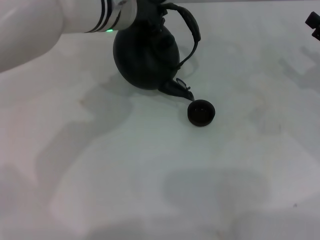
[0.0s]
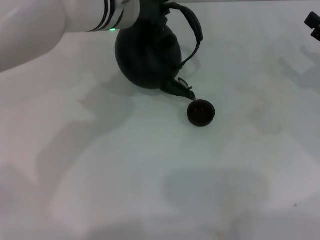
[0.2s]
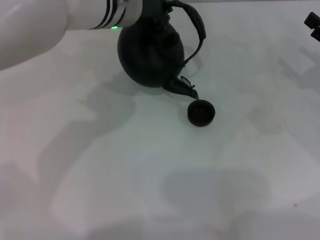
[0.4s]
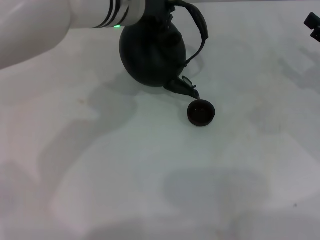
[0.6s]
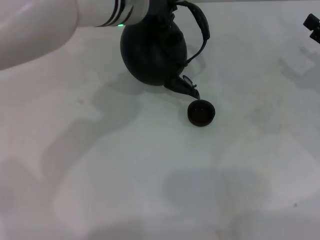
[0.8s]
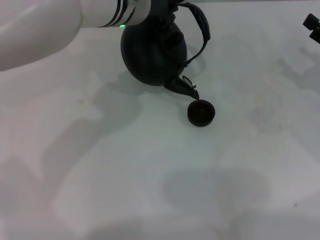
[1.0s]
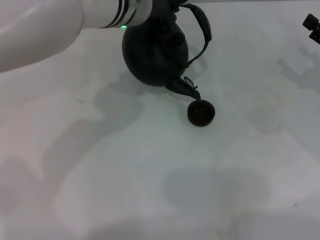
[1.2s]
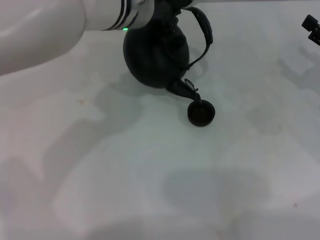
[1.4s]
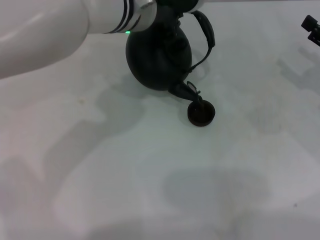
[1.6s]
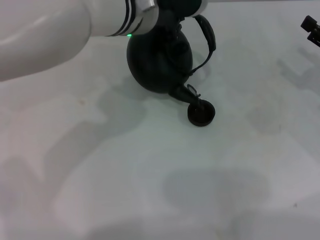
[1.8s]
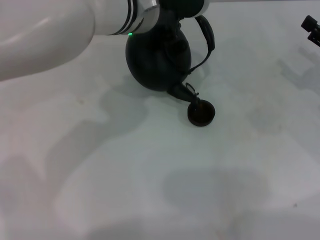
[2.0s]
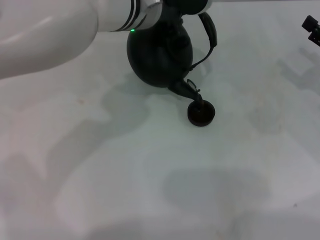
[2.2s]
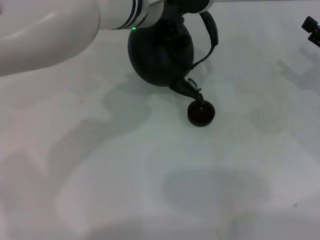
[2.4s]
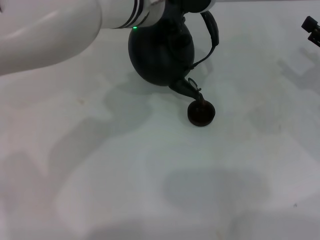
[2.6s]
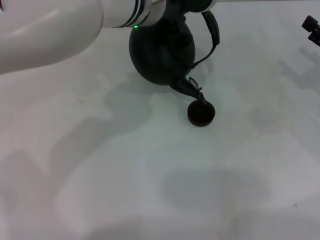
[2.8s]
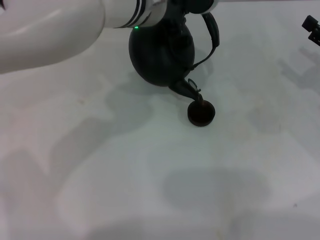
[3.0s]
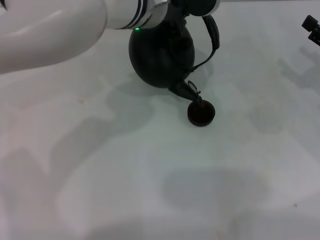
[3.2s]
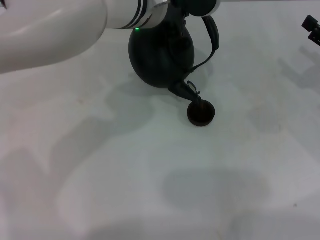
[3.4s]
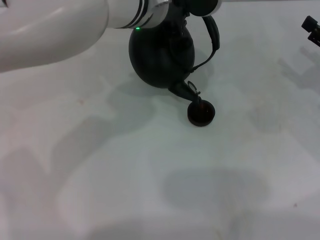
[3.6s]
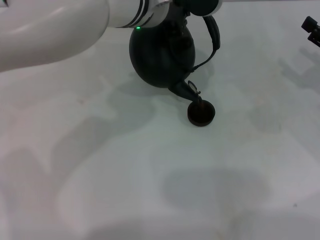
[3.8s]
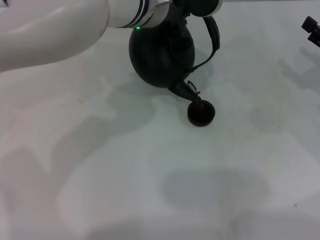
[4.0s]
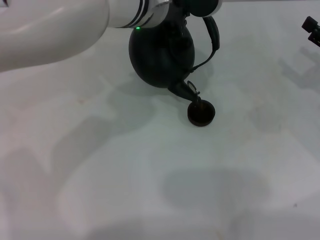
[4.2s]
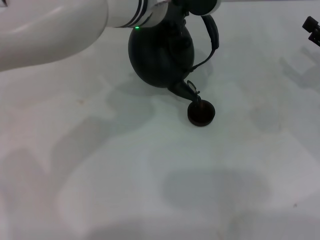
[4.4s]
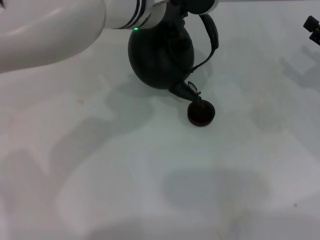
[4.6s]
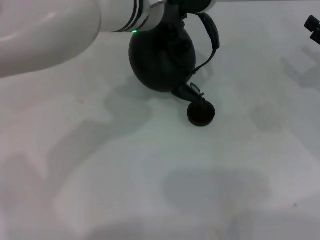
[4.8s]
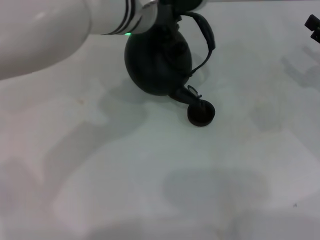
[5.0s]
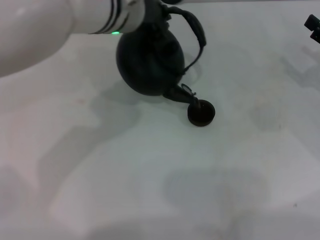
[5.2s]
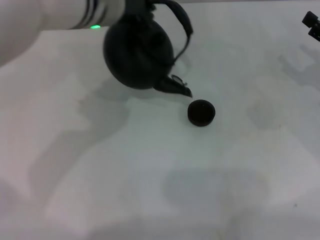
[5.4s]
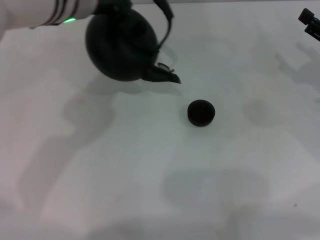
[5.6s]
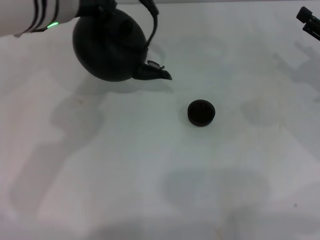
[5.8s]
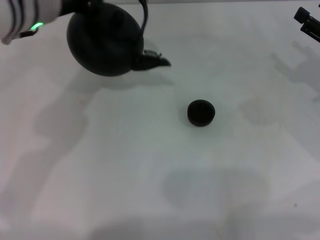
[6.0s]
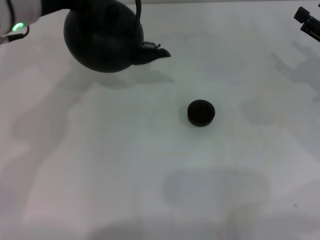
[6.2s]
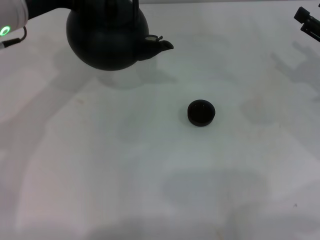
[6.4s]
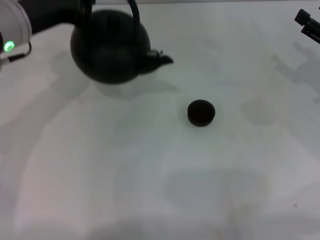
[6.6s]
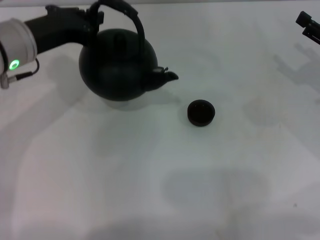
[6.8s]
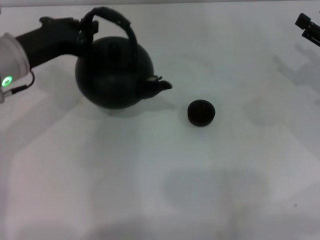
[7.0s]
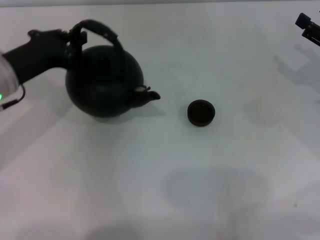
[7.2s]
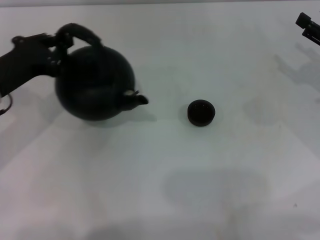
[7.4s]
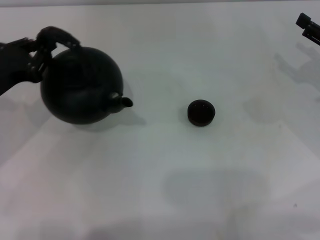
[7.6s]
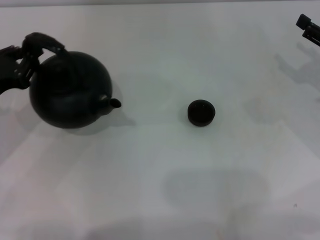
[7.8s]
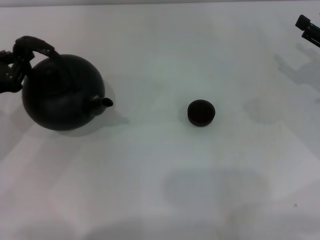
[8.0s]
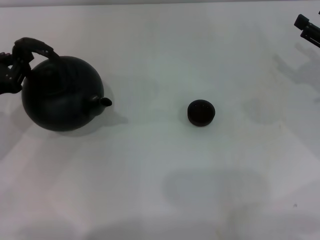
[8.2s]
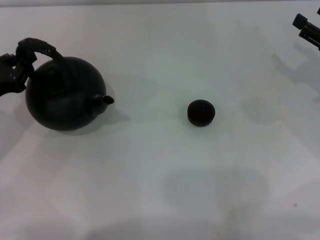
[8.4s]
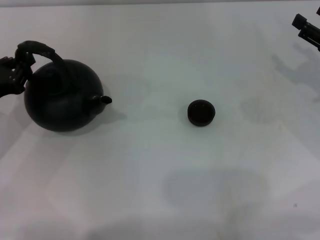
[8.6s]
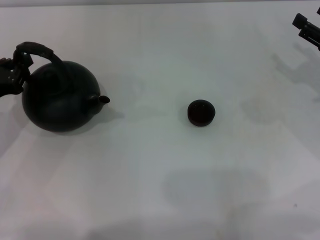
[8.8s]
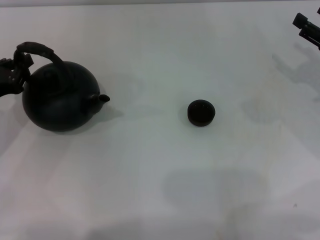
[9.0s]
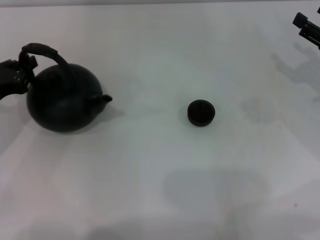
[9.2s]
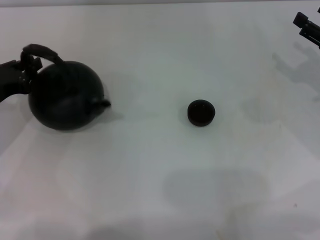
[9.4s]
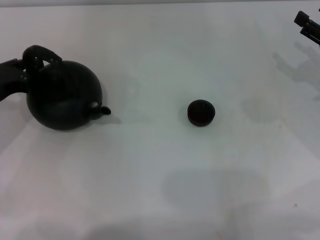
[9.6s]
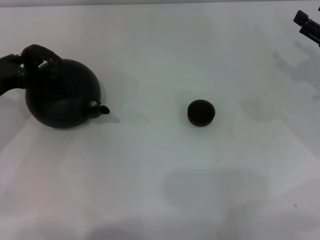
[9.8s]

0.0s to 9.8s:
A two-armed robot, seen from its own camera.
Task of the whole recording: Grasp the handle of the teapot with one hand and pour tea into the teacup.
Step, 0.0s to 5.4s: Pour tea into the teacup with the left gripper.
0.0s to 2.8s: The grippers move only a little.
2.8s to 4.2s: Both grippers stay put.
4.2s to 5.6s: The left gripper heads to the left, covering some 10 cm.
5.6s to 7.0s: The left gripper moves to the left and downward, roughly 15 cm.
7.0s to 8.4s: The left gripper travels to the left, backward and downward by about 10 cm.
8.4s to 9.8s: There are only small adjustments of the grippers.

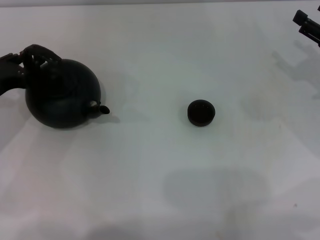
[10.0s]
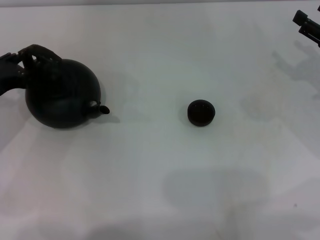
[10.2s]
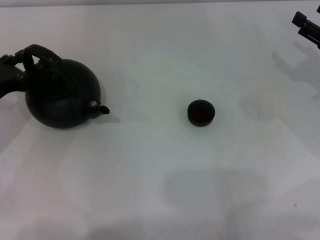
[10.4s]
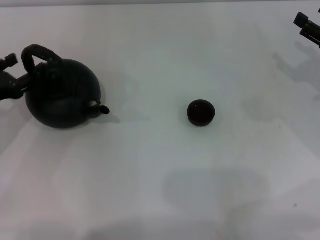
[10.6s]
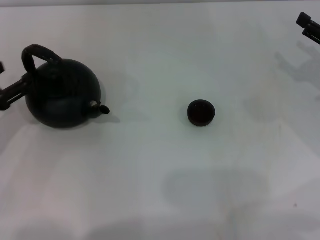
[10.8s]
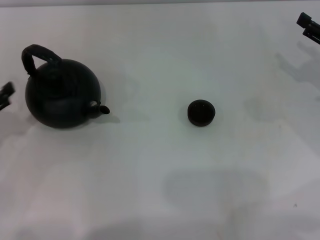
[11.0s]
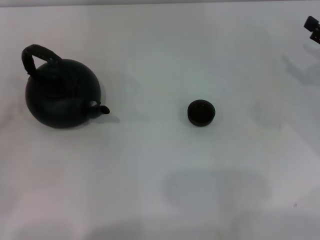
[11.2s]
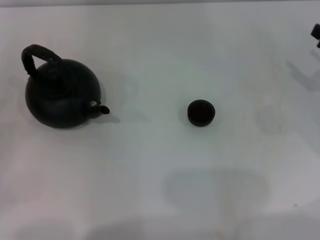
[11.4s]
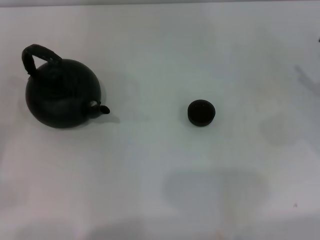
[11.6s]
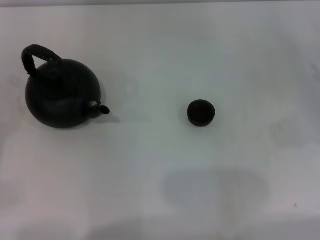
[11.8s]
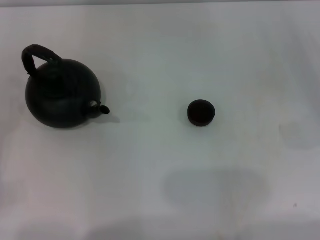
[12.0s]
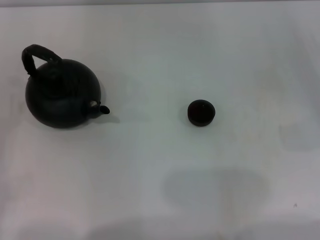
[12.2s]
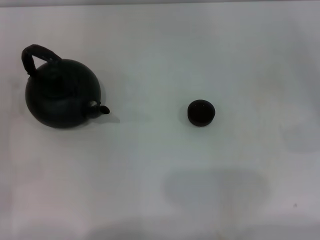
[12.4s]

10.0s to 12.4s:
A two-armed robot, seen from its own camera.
Task of the whole recording: Grasp the handle of the teapot with one hand and pour tea into the teacup.
10.0s to 11.2s: The left gripper travels backward and to the left by some 15 cm, and opens.

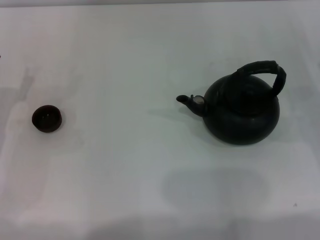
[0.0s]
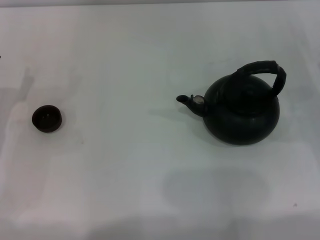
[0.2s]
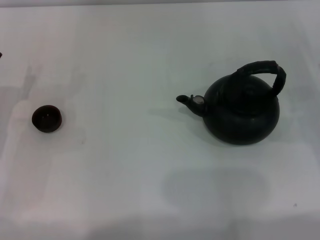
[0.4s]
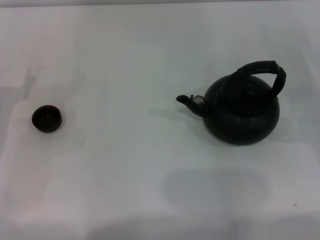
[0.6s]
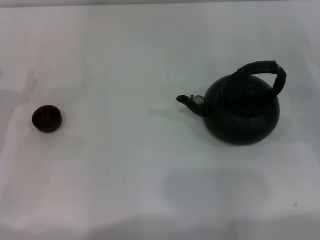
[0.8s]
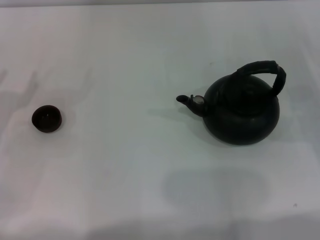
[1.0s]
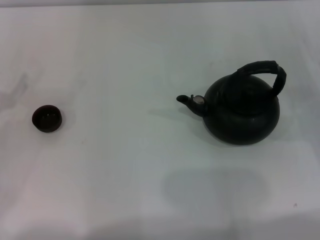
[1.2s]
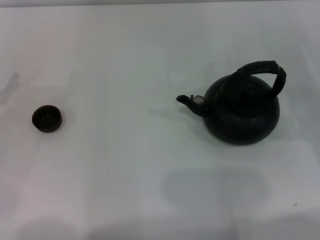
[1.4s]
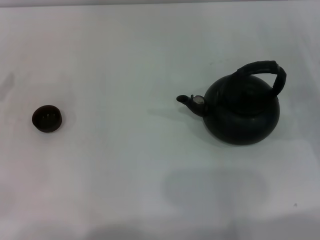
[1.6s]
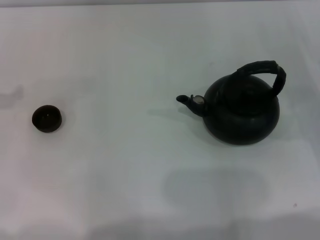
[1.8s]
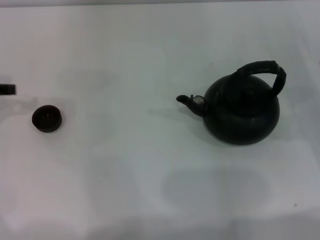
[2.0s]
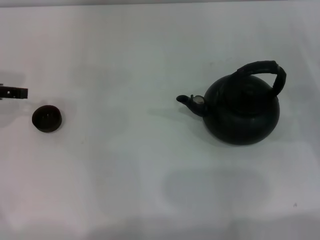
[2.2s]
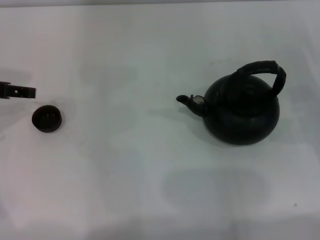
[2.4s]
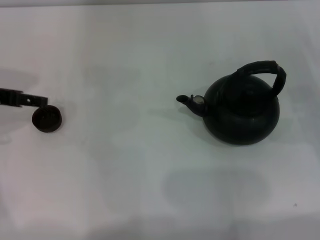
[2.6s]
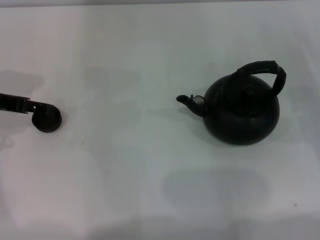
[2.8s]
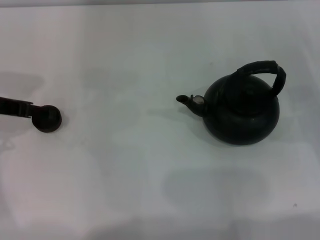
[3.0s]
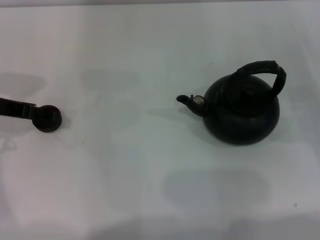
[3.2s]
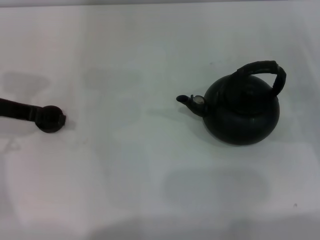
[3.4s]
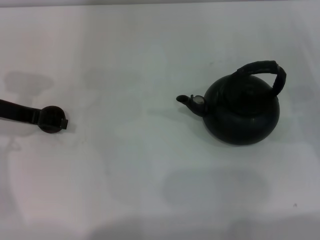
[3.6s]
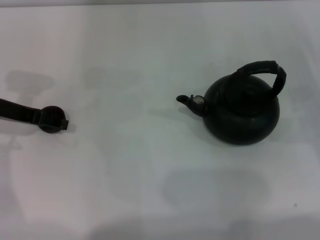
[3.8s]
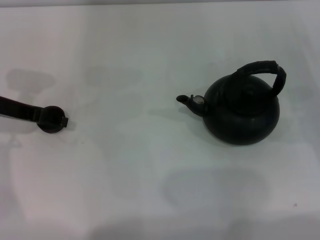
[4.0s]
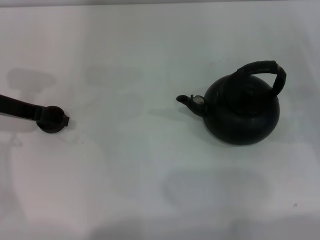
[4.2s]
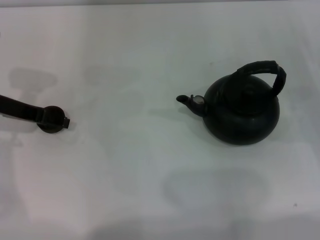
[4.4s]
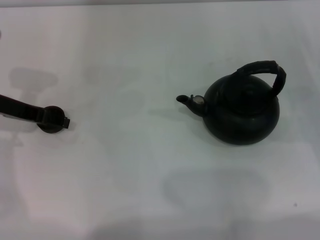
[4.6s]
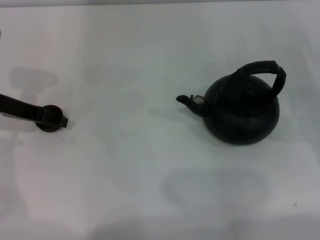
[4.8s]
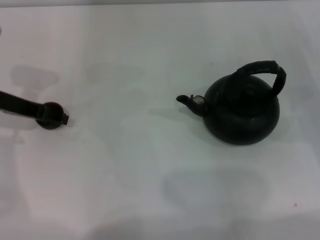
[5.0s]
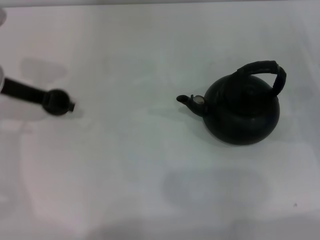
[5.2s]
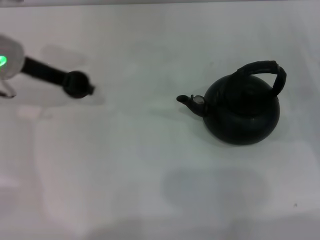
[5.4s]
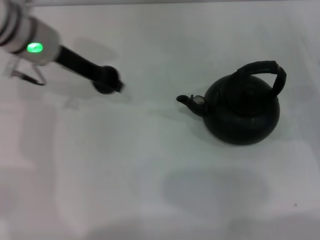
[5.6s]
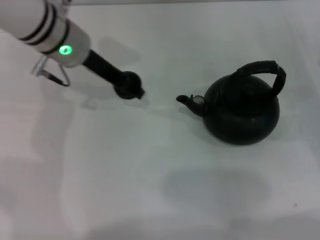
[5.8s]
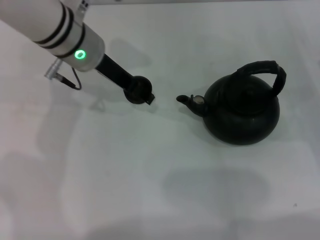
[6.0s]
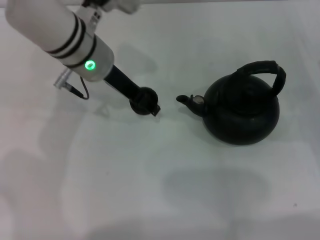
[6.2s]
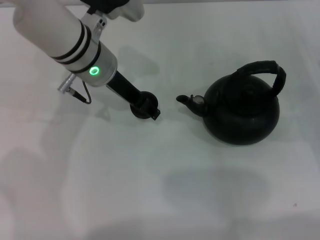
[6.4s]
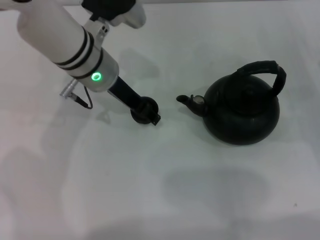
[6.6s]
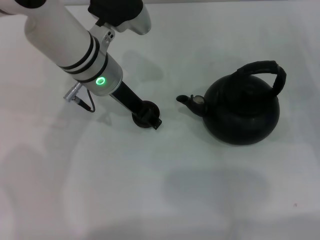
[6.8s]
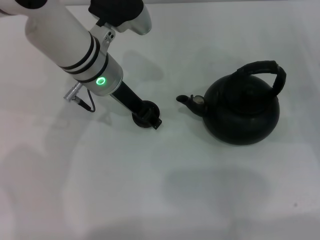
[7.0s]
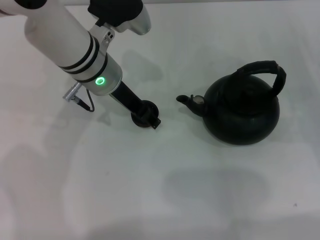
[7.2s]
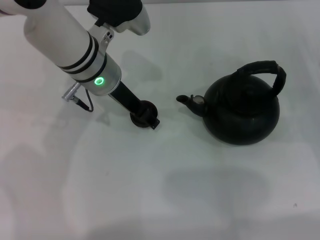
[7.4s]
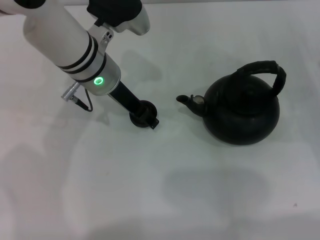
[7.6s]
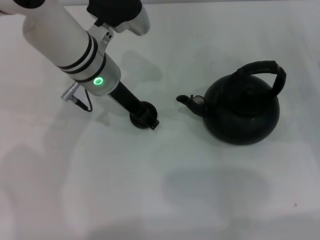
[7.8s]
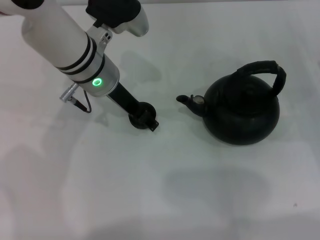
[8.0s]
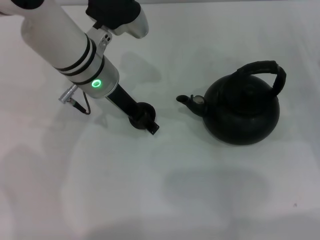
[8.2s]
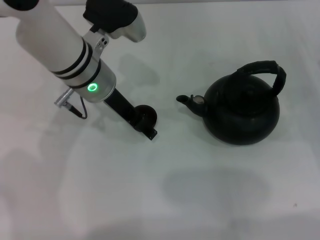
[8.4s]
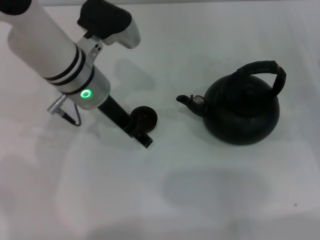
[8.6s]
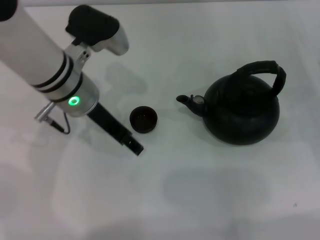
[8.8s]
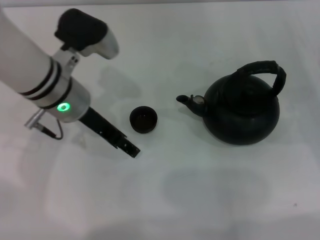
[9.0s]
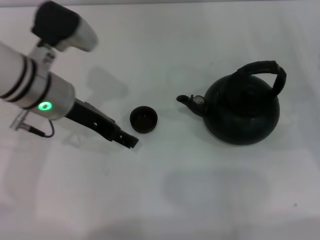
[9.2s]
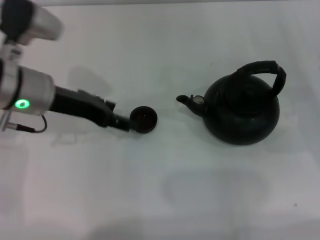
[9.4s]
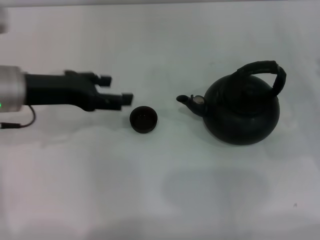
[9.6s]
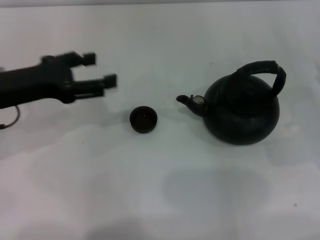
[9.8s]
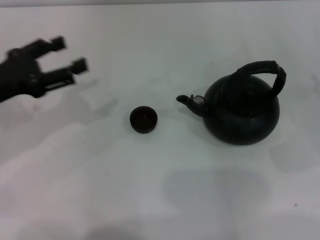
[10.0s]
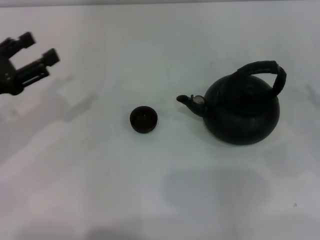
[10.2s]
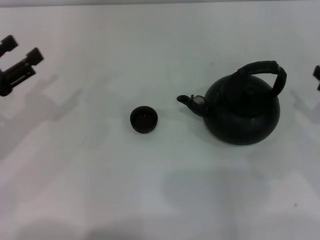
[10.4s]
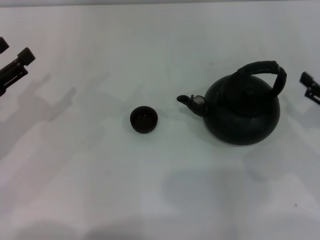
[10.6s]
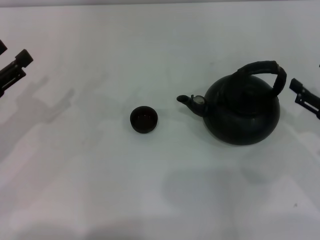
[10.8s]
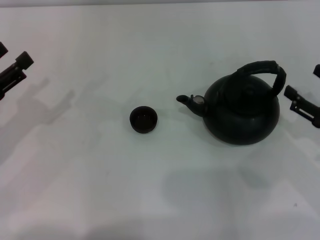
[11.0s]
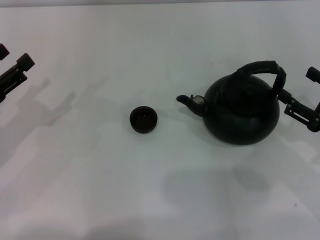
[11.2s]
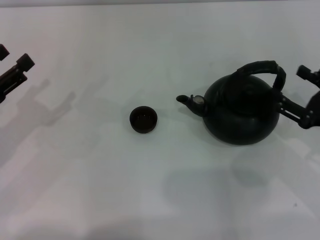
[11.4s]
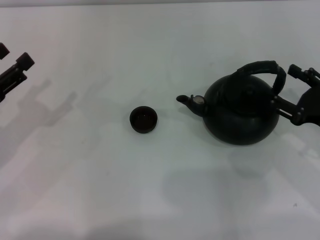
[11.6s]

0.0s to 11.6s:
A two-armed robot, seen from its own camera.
Task of the whole recording: Grasp the handle of the teapot with one hand and pour tea into the teacup.
Step, 0.0s to 5.2s: Pick up the teacup with the left gripper.
Step, 5.4s to 8.8s: Place the teacup in the center of view with the left gripper.
1.4s to 2.8s: The left gripper goes some 10 cm to the right and forward, and closes, then opens again.
2.8s to 4.4s: The grippers make only small movements.
4.4s to 5.8s: The left gripper heads to the right and forward, covering approximately 15 cm, and closes.
5.8s to 7.2s: The left gripper shifts by about 5 cm.
7.2s to 8.8s: The left gripper opens.
8.8s to 10.2s: The right gripper is displaced backward by some 5 cm, while the left gripper moves to the left and backward, some 20 cm.
10.2s to 11.6s: The right gripper goes roughly 5 cm to the left.
